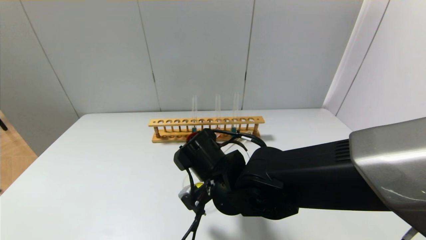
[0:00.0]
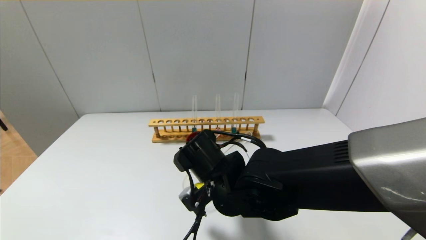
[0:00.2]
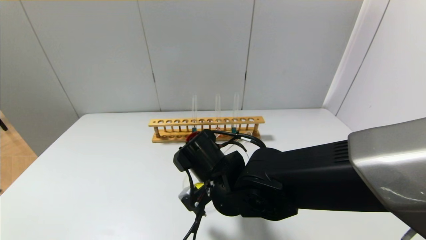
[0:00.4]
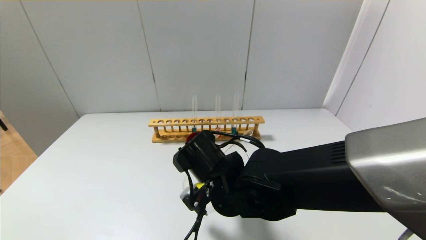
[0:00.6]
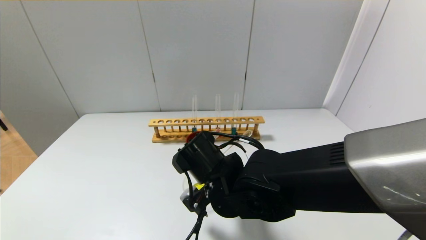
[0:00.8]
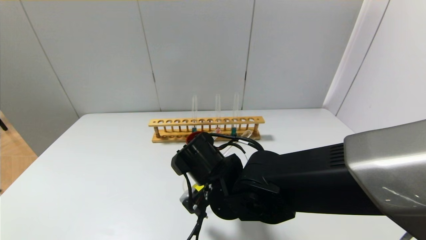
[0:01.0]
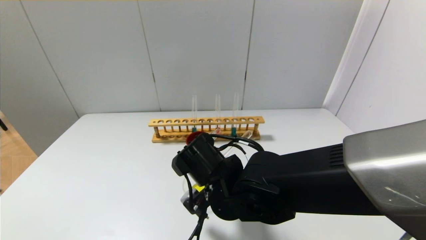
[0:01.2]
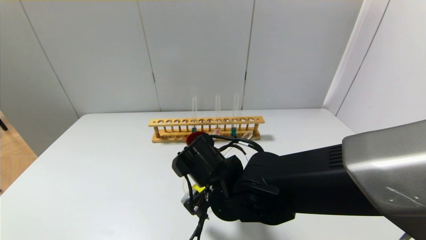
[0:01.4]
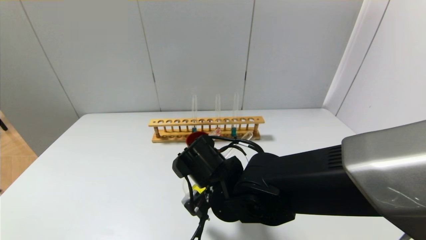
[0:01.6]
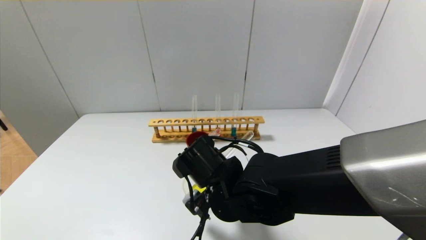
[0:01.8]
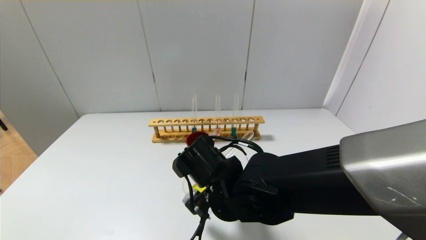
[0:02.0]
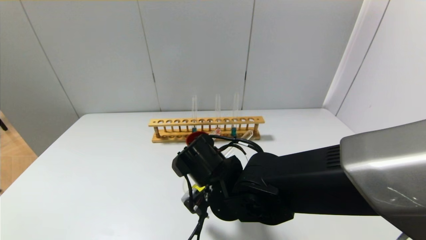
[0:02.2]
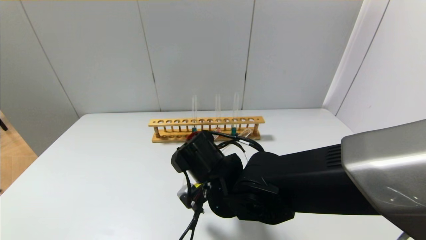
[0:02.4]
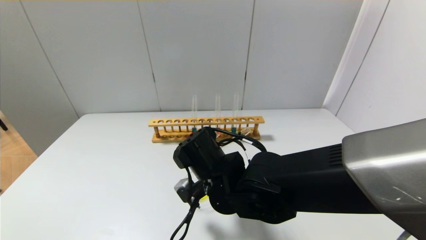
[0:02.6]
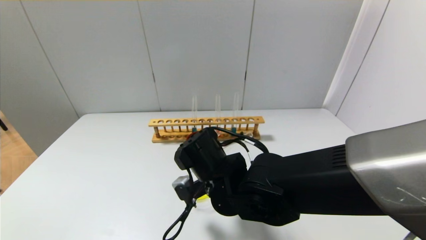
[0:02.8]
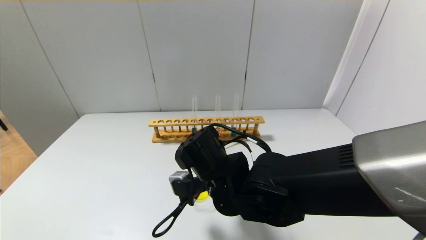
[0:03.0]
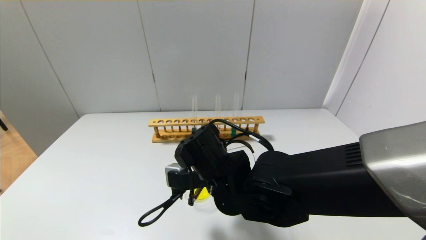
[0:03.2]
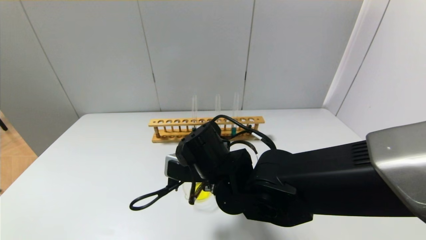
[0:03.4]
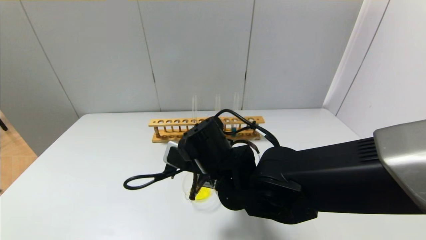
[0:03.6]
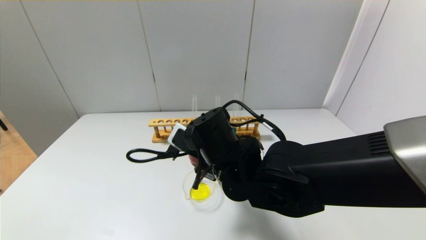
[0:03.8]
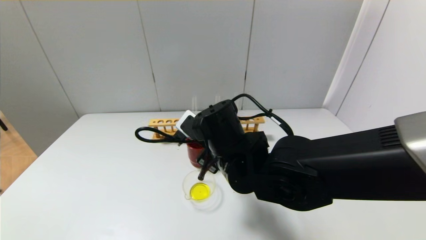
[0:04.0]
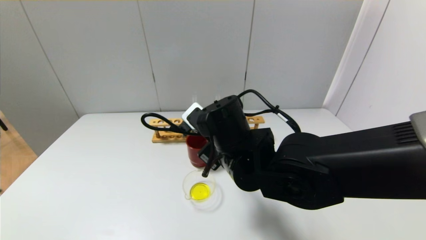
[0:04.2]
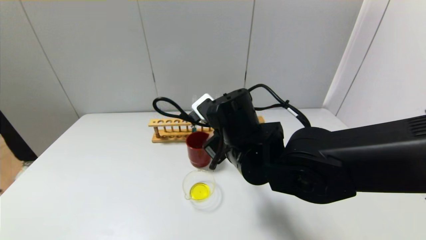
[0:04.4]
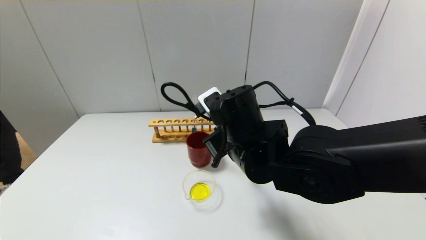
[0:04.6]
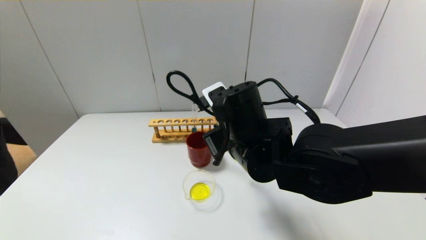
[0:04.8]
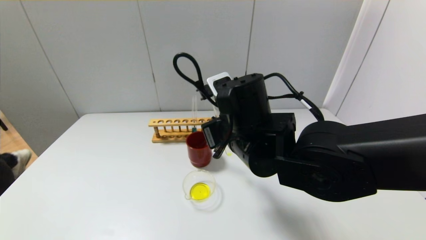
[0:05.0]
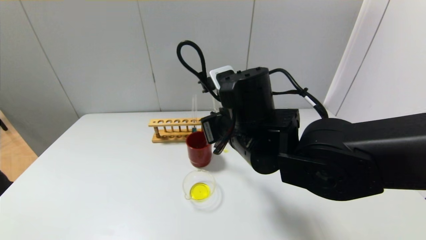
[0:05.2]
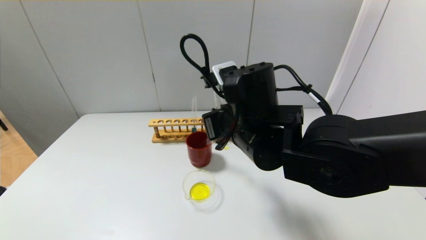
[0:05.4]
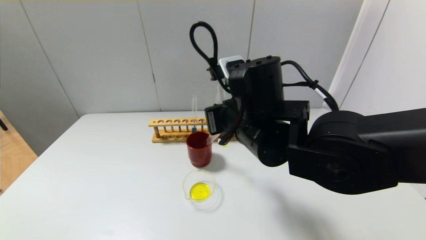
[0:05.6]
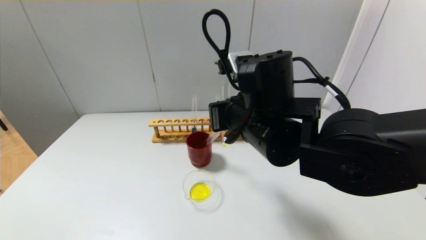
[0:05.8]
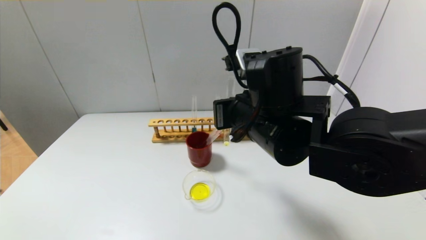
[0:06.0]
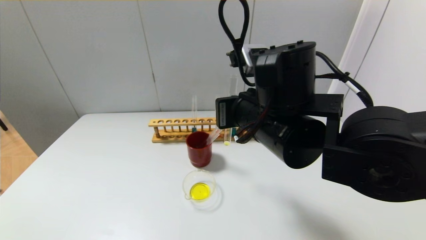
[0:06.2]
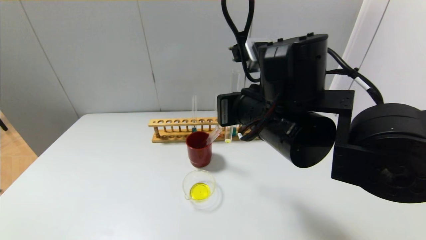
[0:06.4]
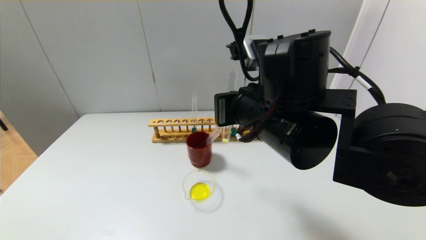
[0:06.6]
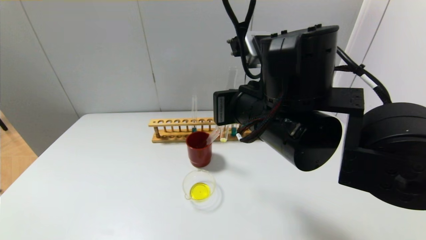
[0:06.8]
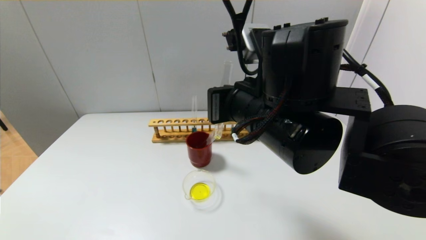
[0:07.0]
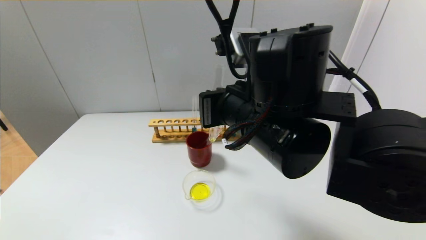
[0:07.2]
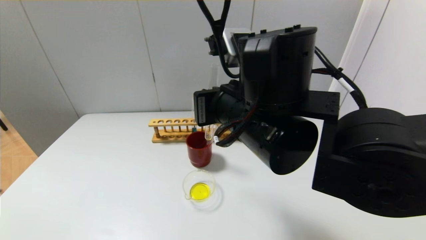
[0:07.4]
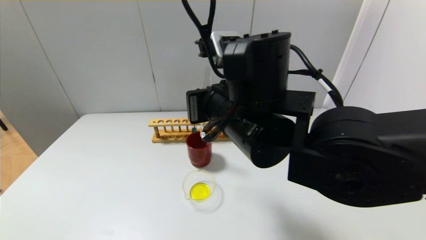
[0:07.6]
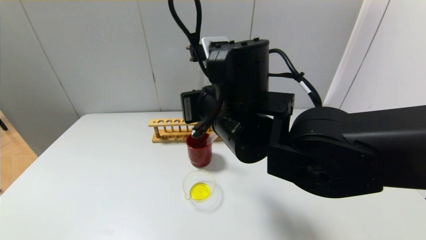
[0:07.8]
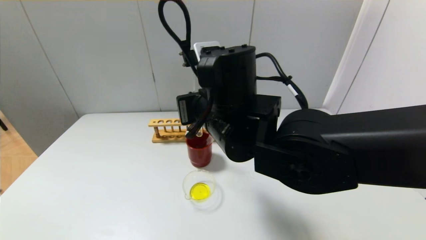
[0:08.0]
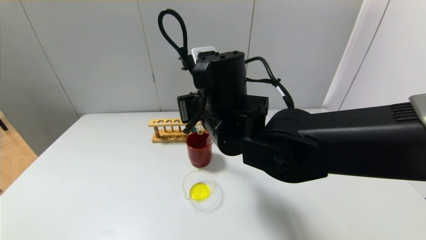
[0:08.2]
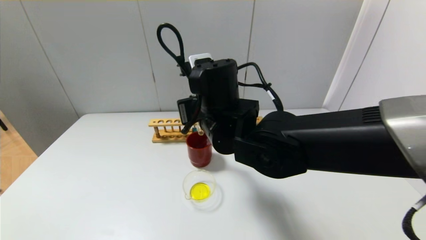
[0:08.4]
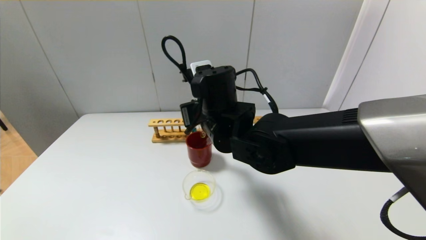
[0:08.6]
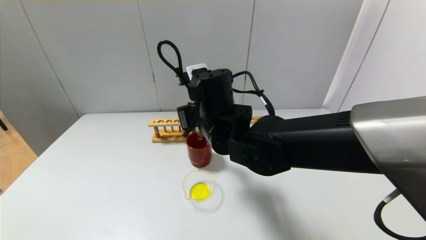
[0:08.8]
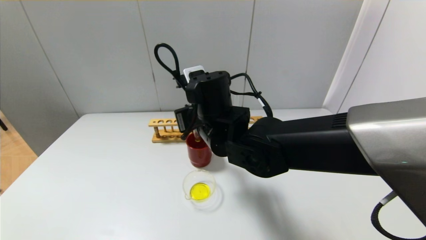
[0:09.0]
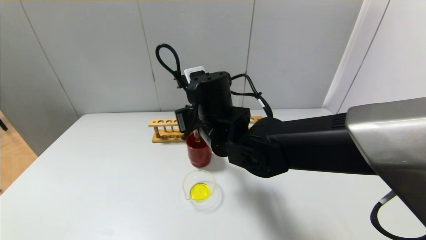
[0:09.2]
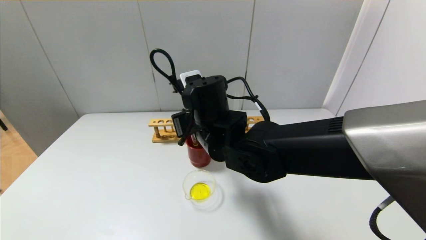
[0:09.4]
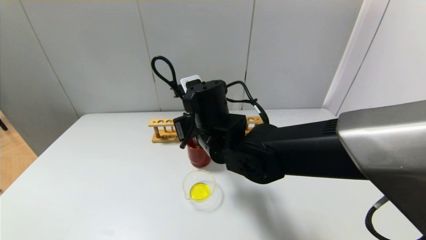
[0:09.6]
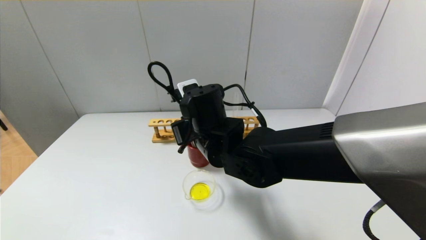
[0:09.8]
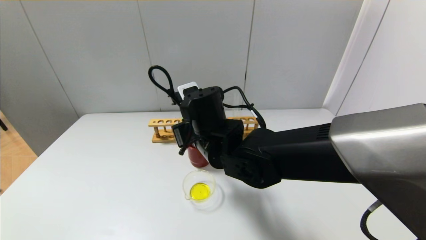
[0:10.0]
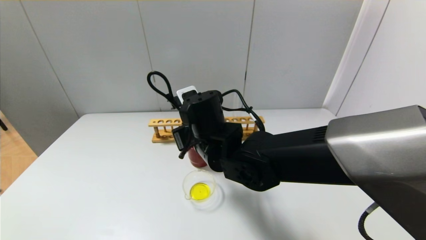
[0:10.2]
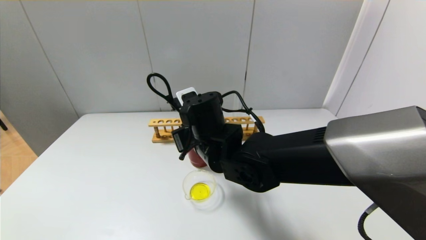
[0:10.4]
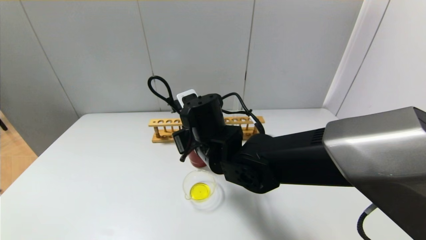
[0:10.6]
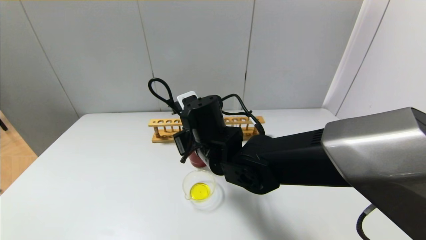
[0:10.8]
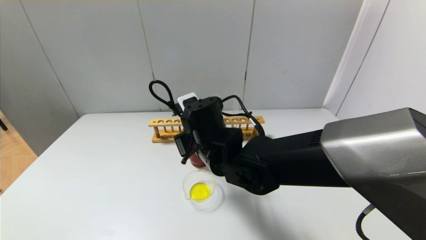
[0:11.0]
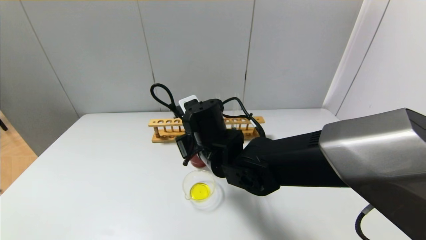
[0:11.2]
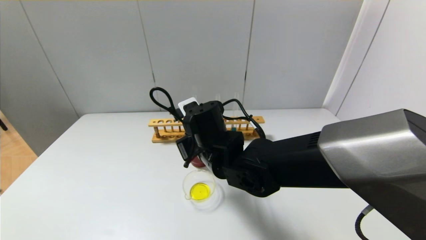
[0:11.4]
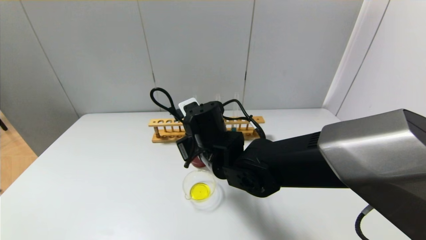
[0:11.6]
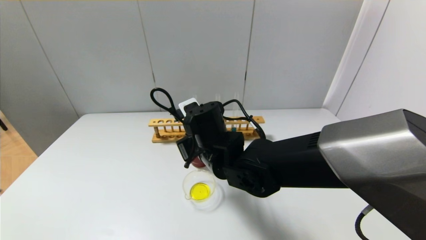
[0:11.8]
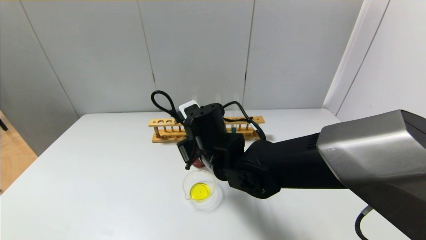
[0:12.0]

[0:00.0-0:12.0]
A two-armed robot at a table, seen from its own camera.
Step, 0.0 to 3.0 s: Pour the yellow reagent into the graduated cylinder with the right gripper.
0.0 to 1.6 s: Both grippers stay about where they are.
3.0 to 4.4 s: The right gripper heads upward, covering about 5 cm.
4.4 to 6.0 s: The right gripper moves upward, roughly 5 cm.
6.0 to 7.6 s: The grippers move only a little.
7.6 to 9.0 s: The right gripper travels forward and downward by roughly 10 cm.
9.0 to 12.0 s: There are only small adjustments of the grippers.

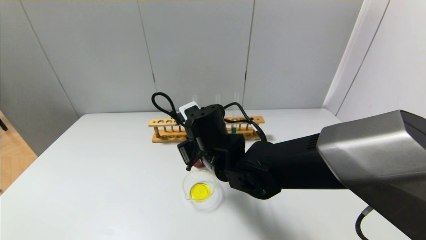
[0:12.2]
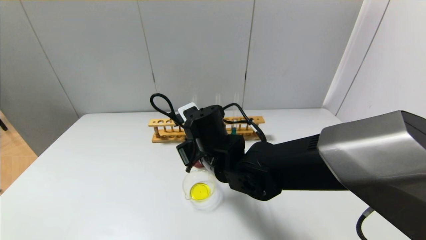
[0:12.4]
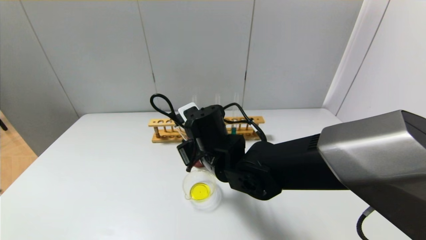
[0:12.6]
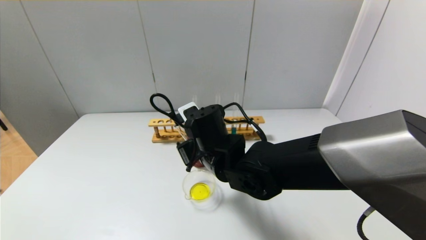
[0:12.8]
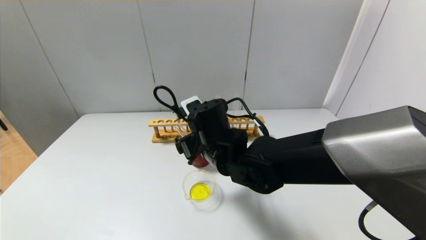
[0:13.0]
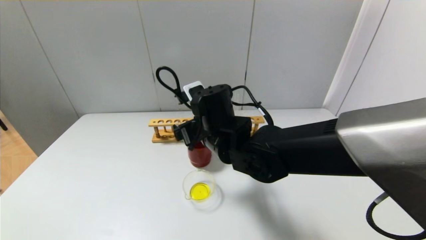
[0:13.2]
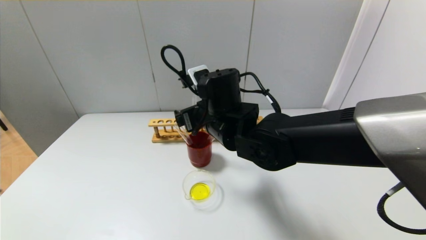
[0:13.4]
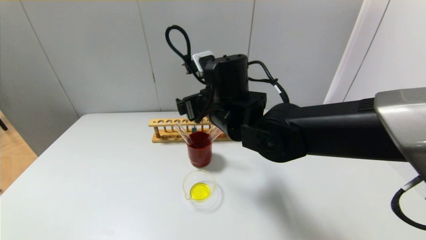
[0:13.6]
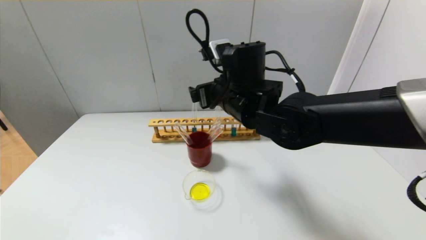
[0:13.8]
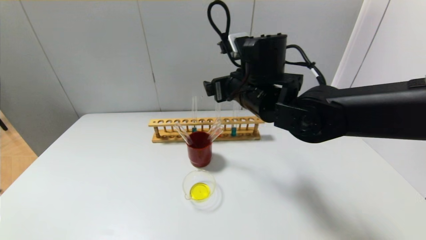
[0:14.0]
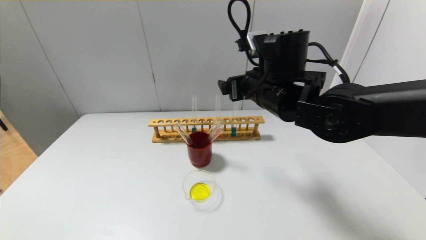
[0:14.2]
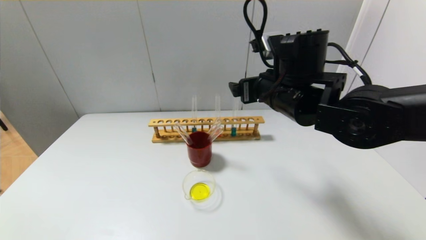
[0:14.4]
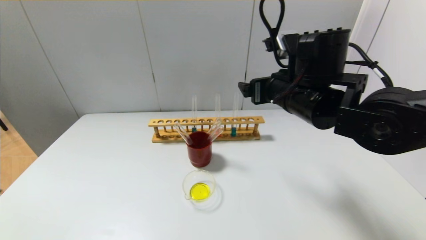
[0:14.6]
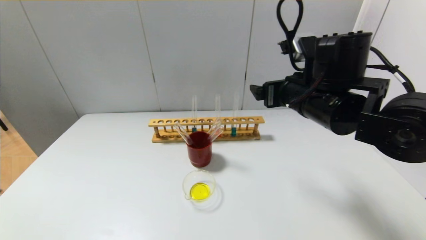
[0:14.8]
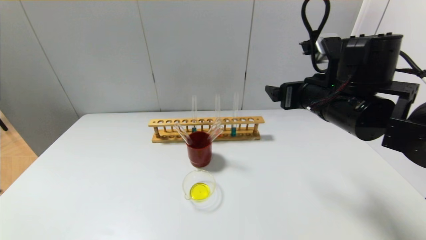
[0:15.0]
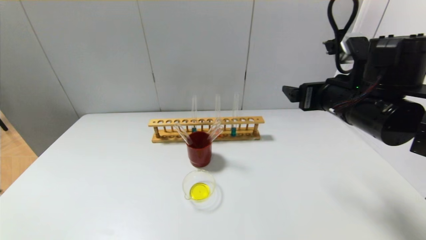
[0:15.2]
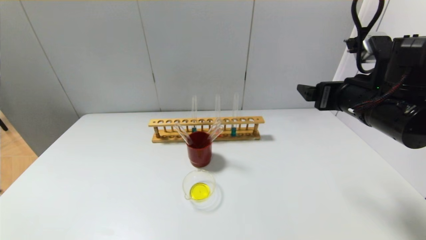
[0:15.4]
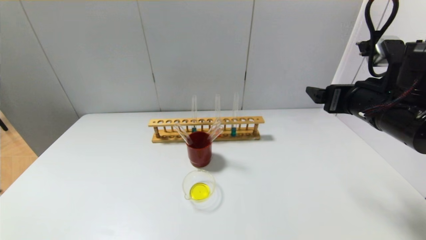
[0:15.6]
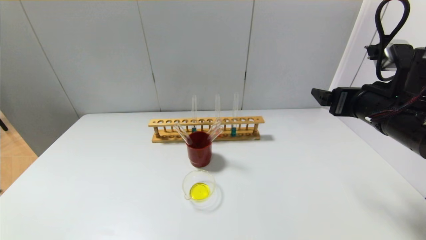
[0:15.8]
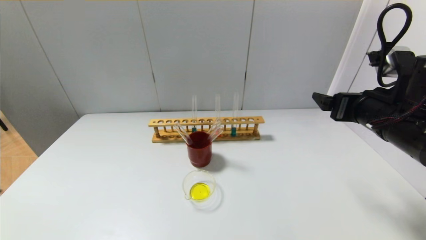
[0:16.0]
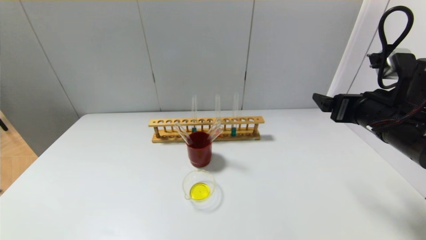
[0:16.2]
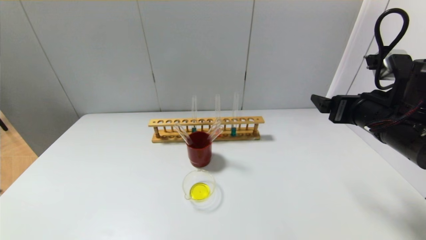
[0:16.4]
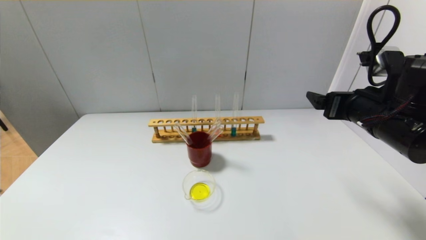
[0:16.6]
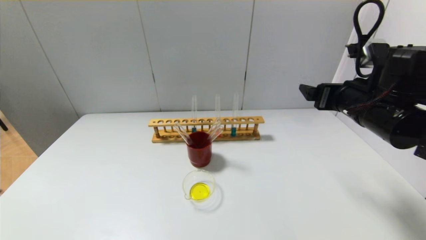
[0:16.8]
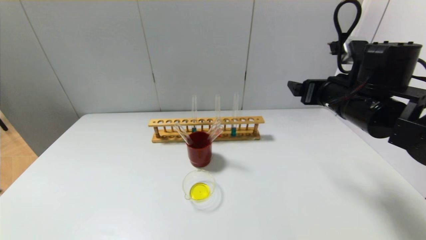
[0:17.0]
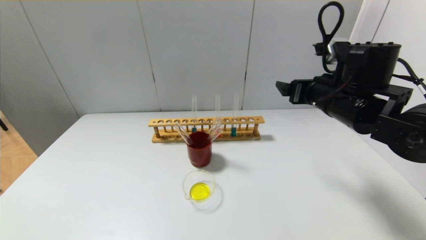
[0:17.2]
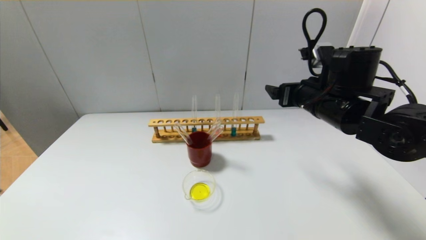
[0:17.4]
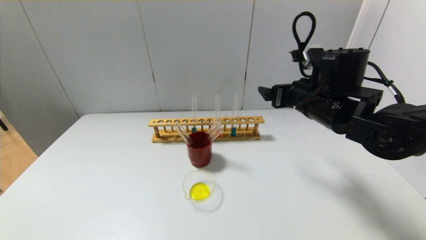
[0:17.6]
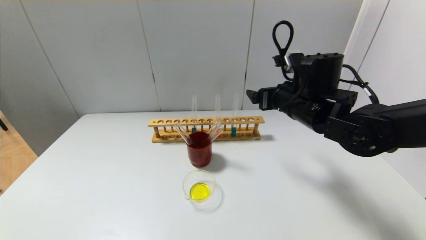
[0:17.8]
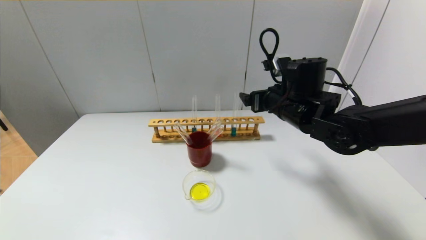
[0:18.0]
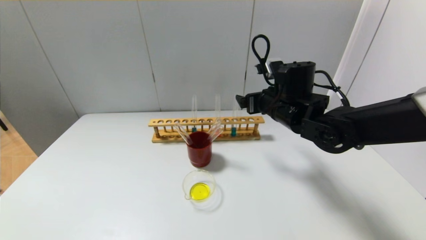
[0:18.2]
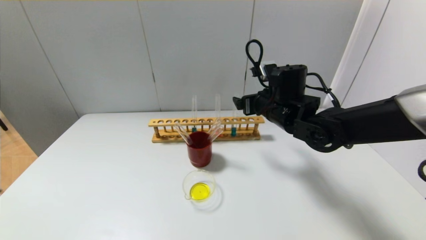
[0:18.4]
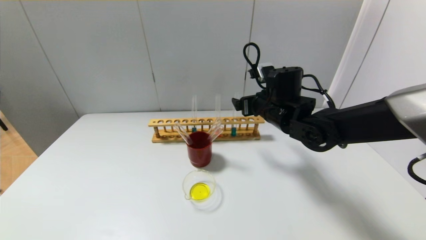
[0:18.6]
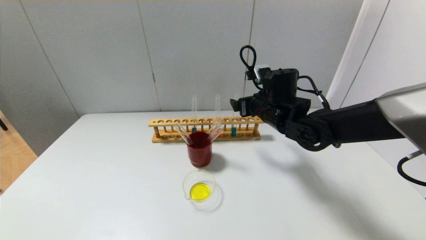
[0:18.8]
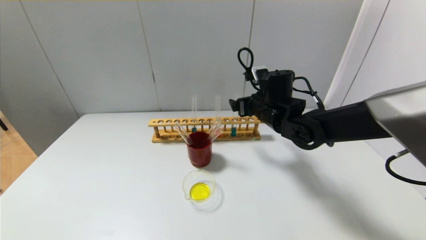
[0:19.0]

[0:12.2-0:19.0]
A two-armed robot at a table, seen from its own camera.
12.2 to 13.6 s: The right gripper moves upward, some 10 cm, and opens.
13.6 to 15.0 s: The right gripper is displaced to the right by roughly 15 cm.
15.0 to 16.2 s: The right gripper travels to the right by some 5 cm.
16.2 to 17.6 s: The right gripper moves forward and to the left, roughly 10 cm.
17.6 to 19.0 s: The right gripper travels forward, to the left and downward by roughly 10 cm.
